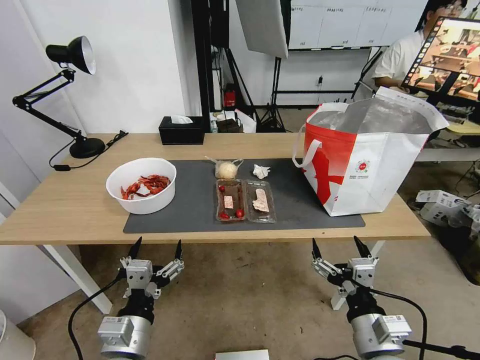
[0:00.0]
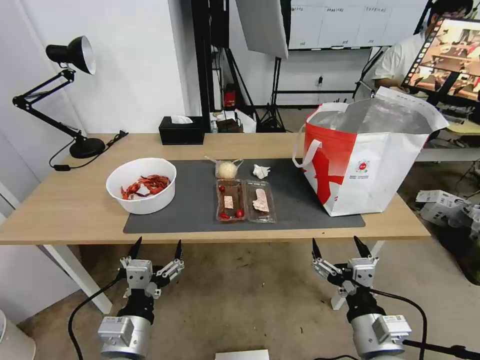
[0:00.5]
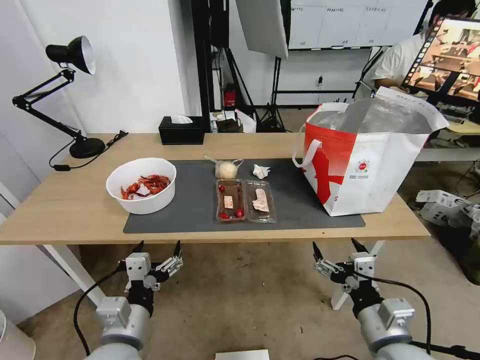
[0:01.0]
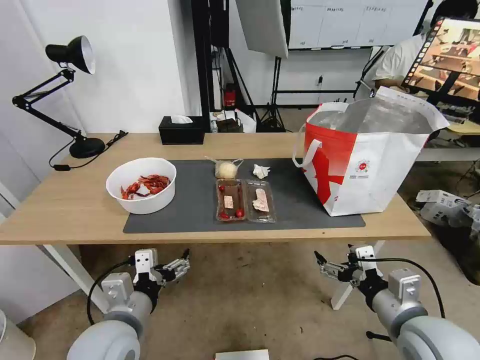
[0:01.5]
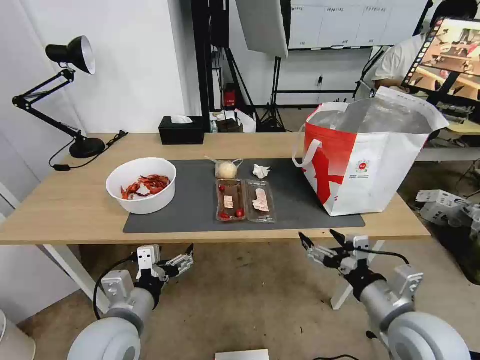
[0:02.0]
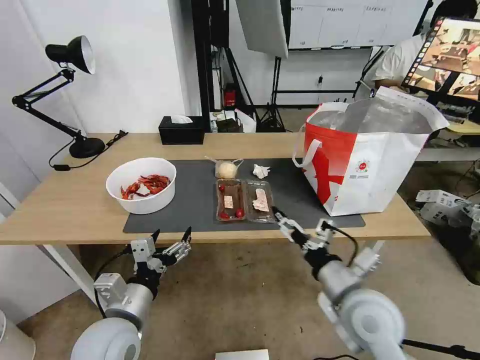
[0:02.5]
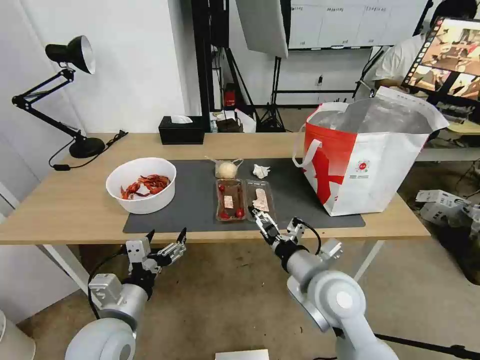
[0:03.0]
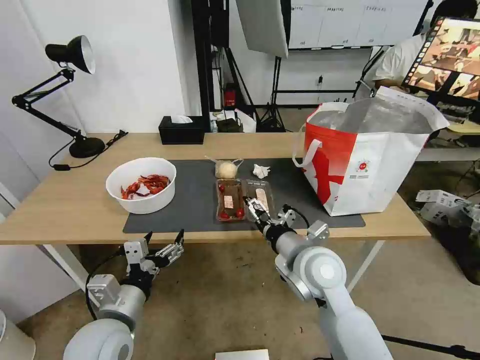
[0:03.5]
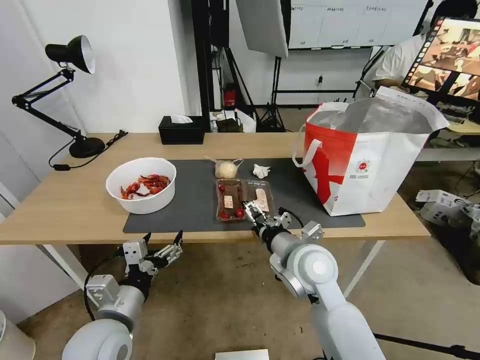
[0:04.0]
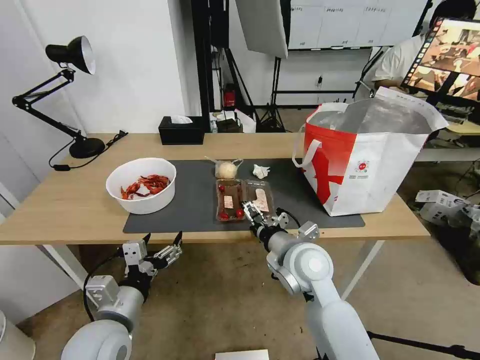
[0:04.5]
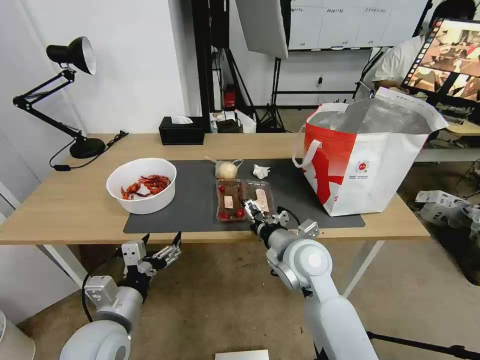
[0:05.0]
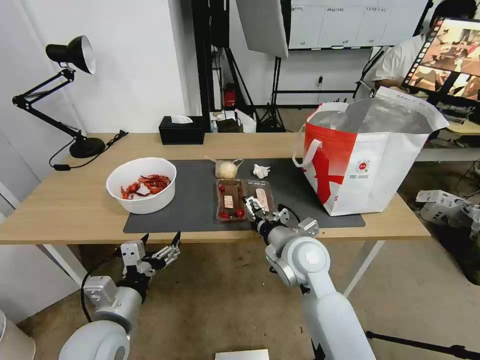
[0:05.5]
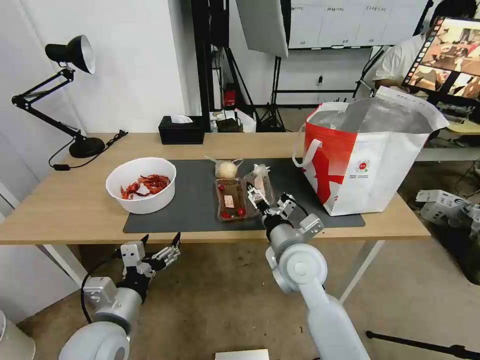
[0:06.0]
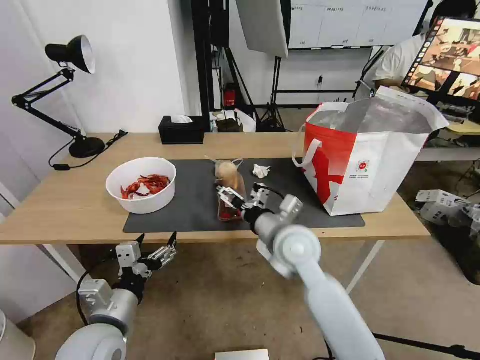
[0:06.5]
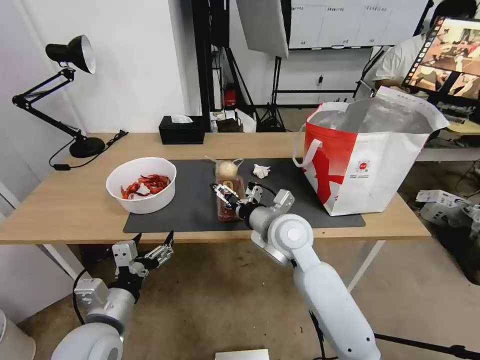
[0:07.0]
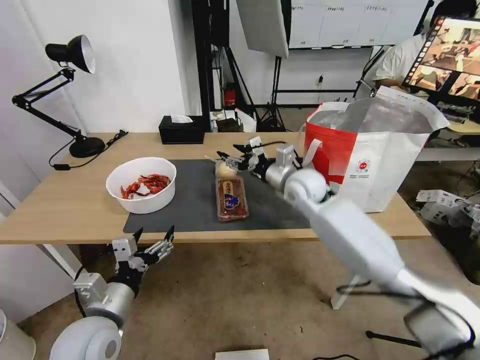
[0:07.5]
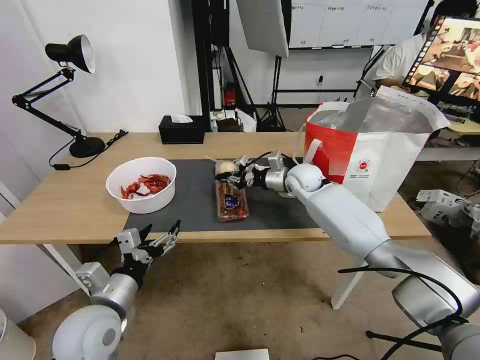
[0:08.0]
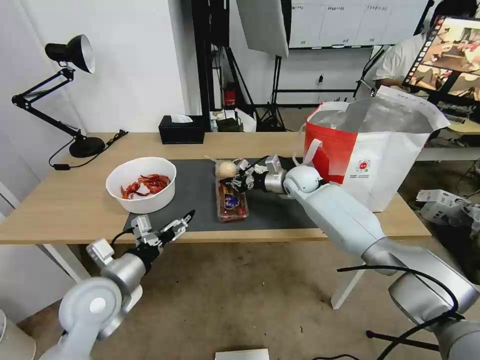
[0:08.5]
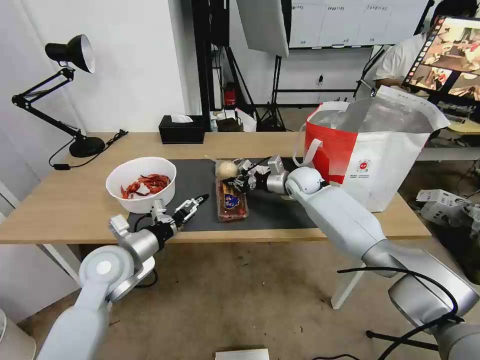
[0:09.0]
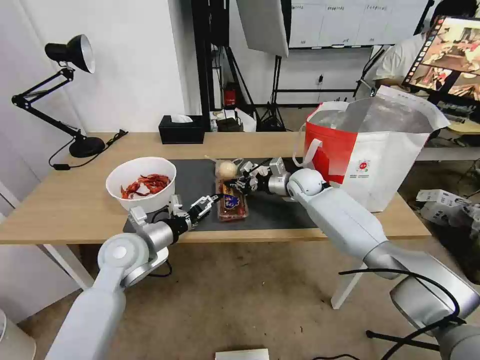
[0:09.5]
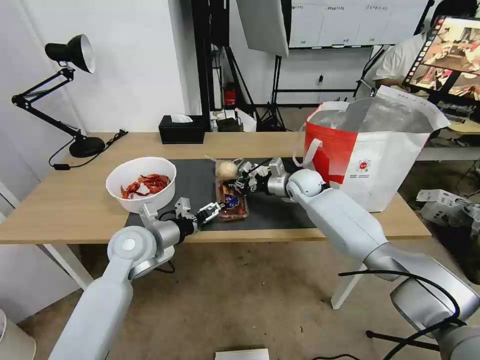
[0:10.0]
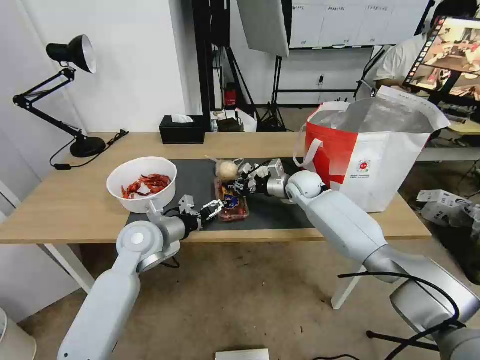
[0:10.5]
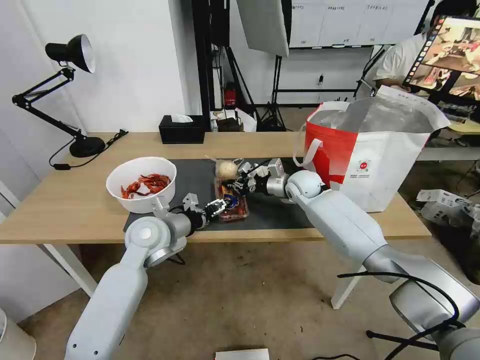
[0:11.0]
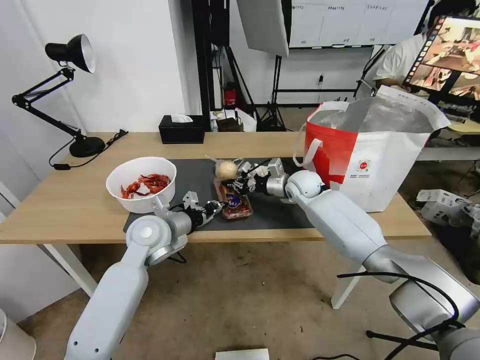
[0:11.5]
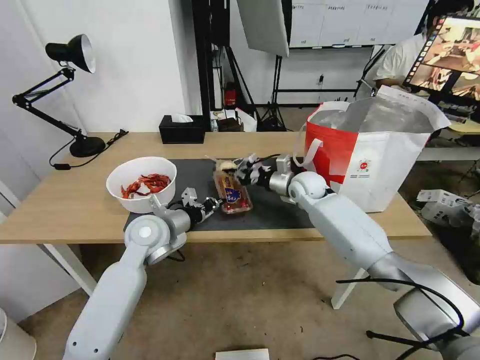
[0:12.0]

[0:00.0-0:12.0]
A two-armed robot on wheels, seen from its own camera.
Task of the whole recording: Pick up the trash from the table and place it into the takeout bag.
0:02.0 to 0:04.0: The right gripper goes about 20 cm to the left and forward.
0:04.0 to 0:06.0: The grippers move only a little.
0:06.0 to 0:08.0: The right gripper heads forward, covering some 25 cm, and closes its fingers.
0:08.0 to 0:10.0: The left gripper goes approximately 15 cm forward.
0:10.0 to 0:12.0: The left gripper closes its fingers.

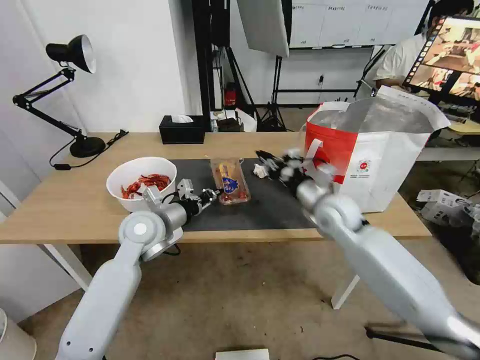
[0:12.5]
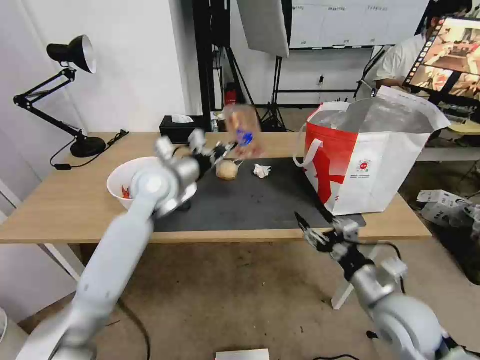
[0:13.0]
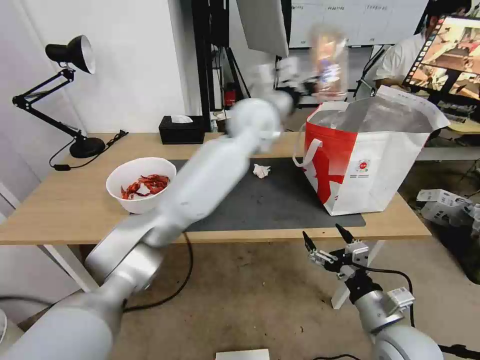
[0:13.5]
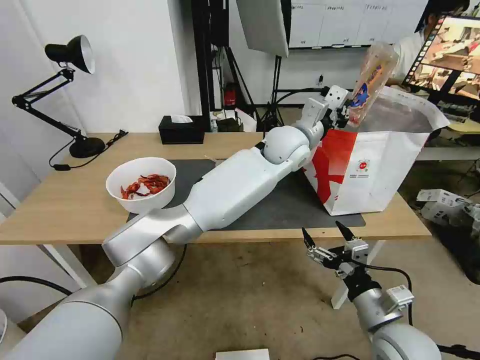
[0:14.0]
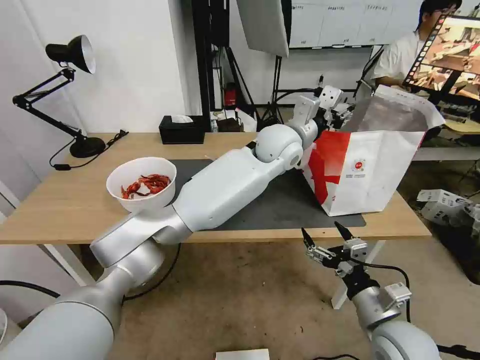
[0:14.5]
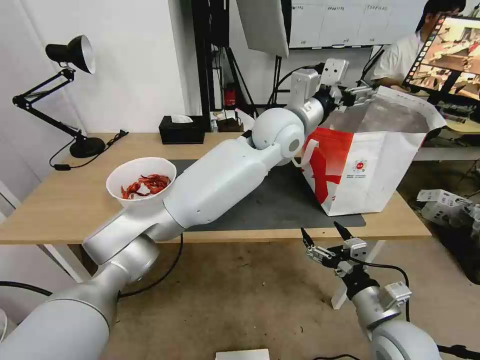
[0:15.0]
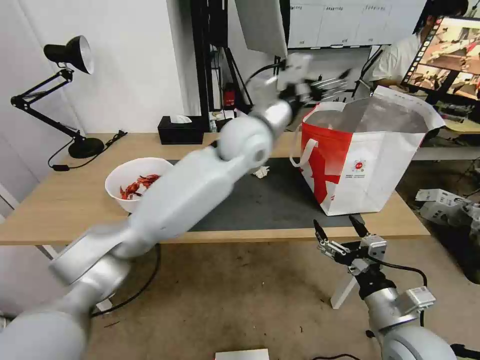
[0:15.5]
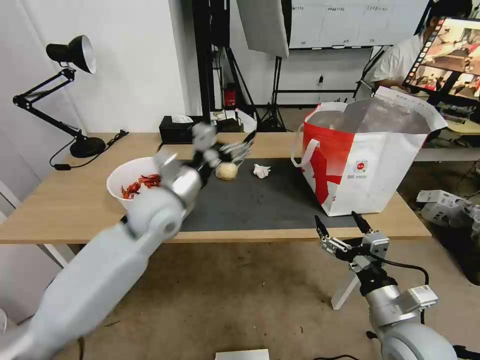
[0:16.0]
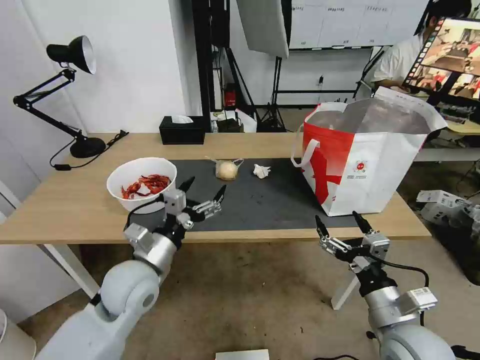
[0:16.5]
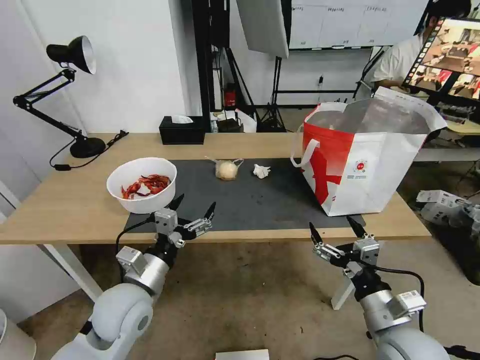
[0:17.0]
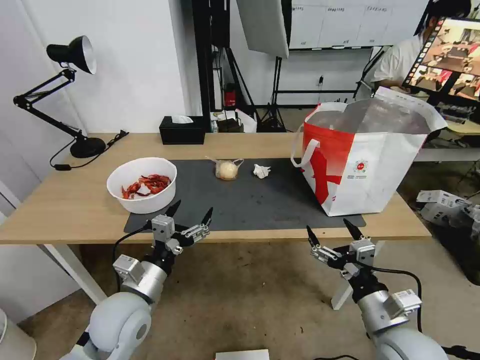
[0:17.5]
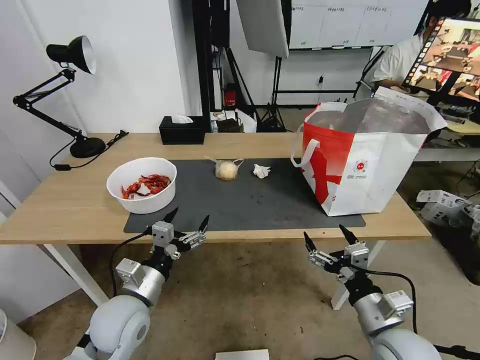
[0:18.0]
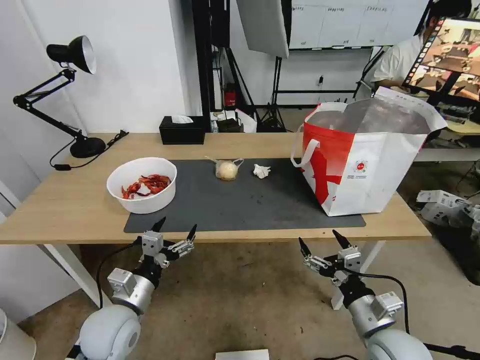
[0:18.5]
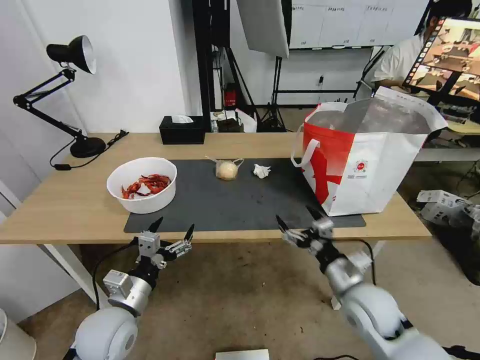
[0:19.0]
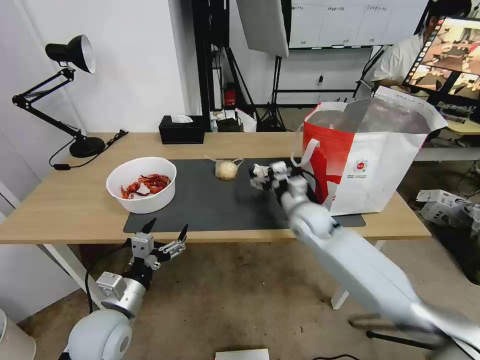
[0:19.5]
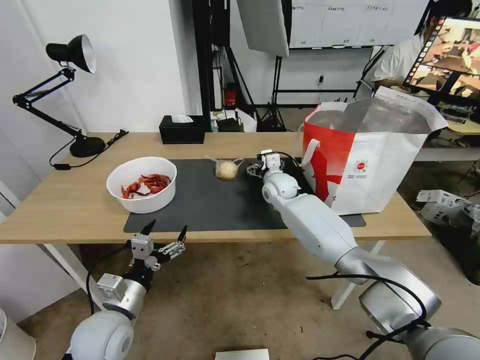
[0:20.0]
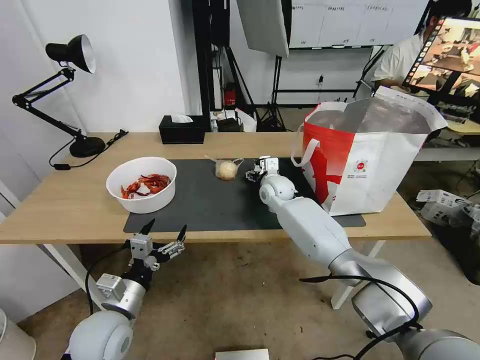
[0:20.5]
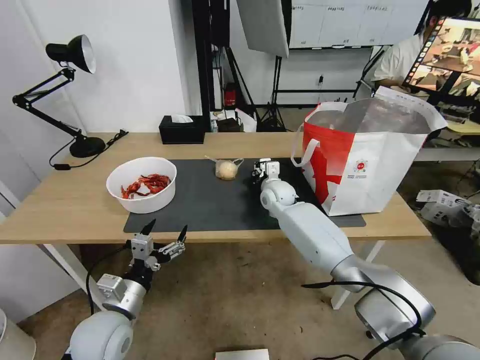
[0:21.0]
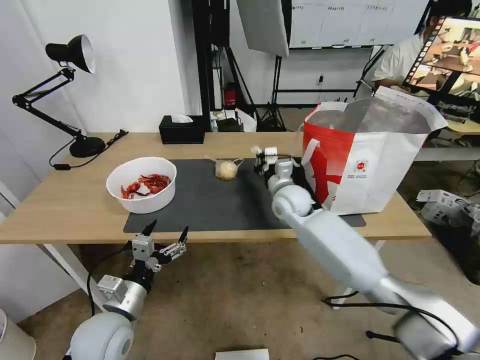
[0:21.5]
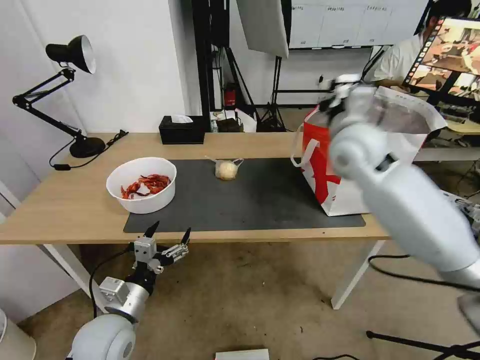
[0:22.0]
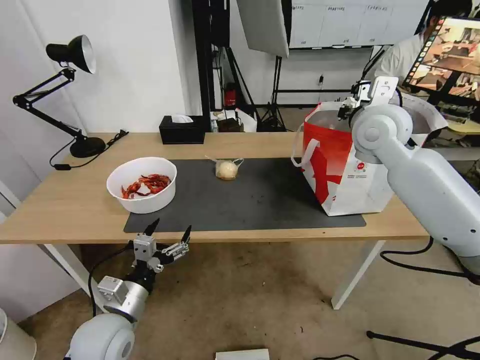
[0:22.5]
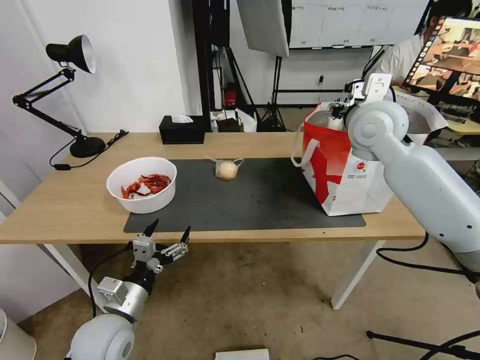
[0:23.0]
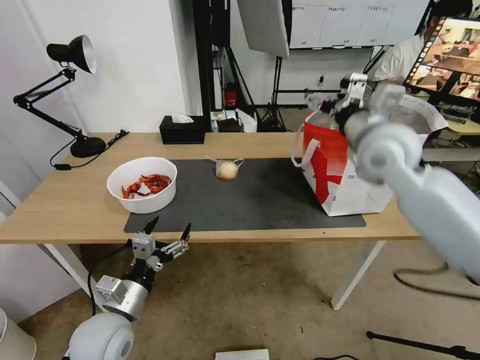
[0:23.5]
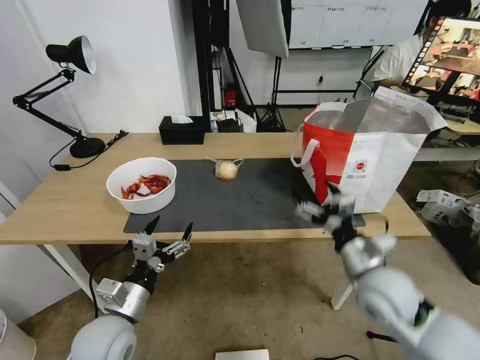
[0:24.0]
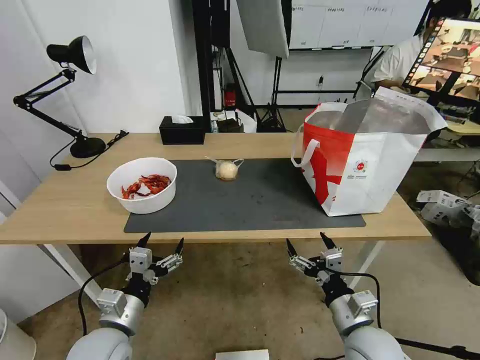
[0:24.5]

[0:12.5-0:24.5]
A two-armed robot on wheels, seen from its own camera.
Task of the whole recording: Pick up the trash from the table and place it into the takeout bag.
0:12.5 to 0:14.5: The right gripper moves backward, about 25 cm, and opens its fingers. Meanwhile the left gripper goes approximately 35 cm to the right, upward and forward, and opens.
0:14.5 to 0:16.5: The left gripper travels to the left, backward and downward by approximately 40 cm, and opens up.
0:16.5 to 0:18.5: The left gripper is displaced downward and backward by roughly 10 cm.
0:18.5 to 0:20.5: The right gripper travels forward and to the left by about 40 cm.
0:20.5 to 0:22.5: The right gripper goes approximately 30 cm upward and to the right, and closes its fingers.
0:22.5 to 0:24.5: The right gripper shifts approximately 40 cm downward and backward, and opens up.

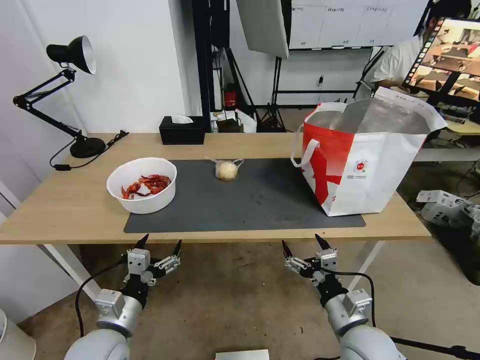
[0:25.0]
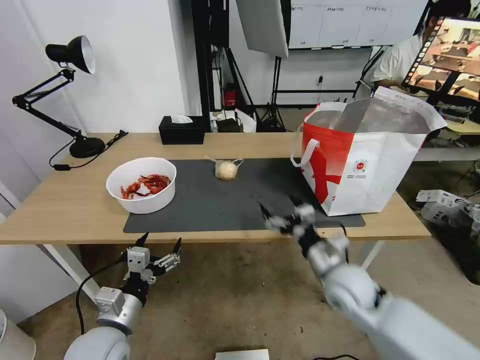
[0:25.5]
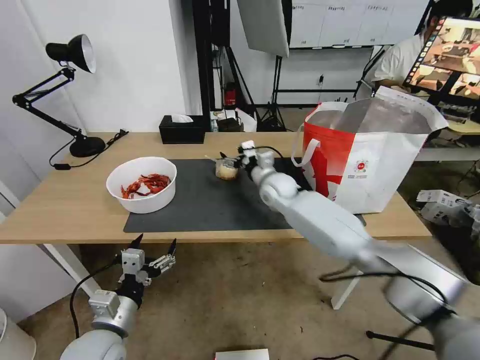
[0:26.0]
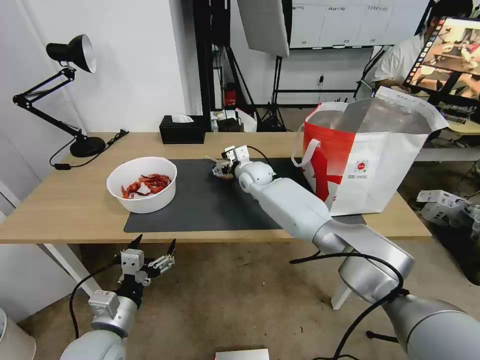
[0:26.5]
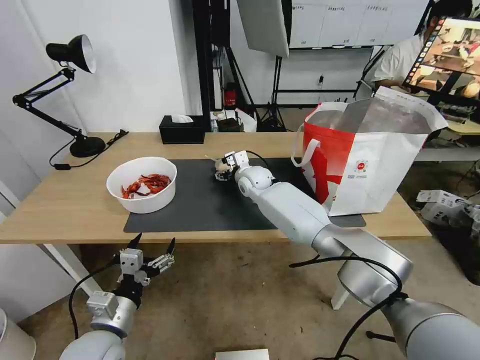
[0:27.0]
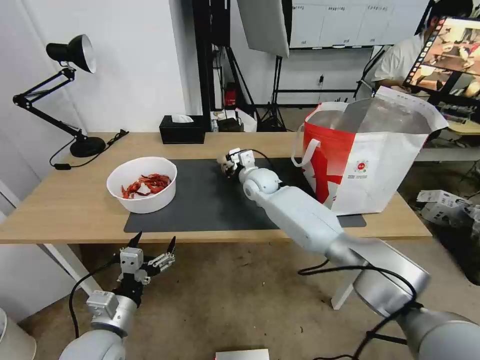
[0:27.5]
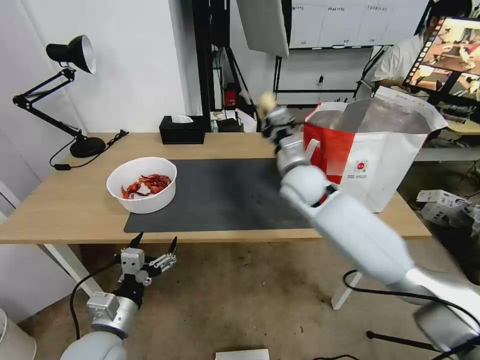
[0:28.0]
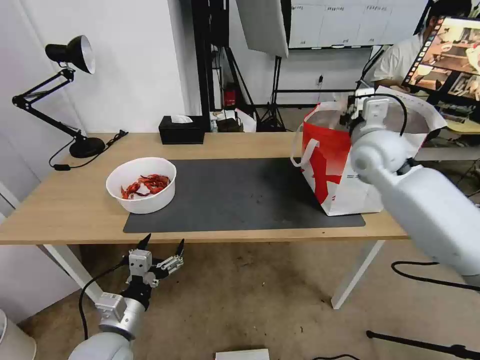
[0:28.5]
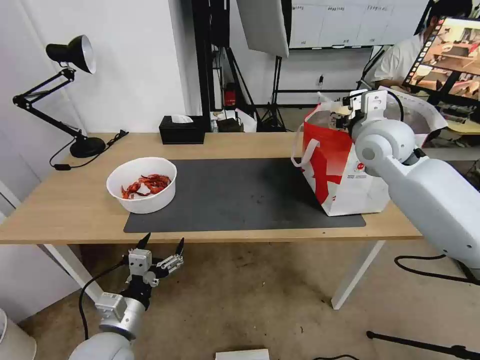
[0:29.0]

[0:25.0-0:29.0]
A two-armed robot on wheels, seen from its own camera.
Task of the whole recording: Pick up the trash from the table and place it into the takeout bag.
0:25.0 to 0:27.0: The right gripper travels forward and to the left by roughly 50 cm.
0:27.0 to 0:29.0: The right gripper shifts approximately 35 cm to the right, upward and backward, and closes, then opens again.
